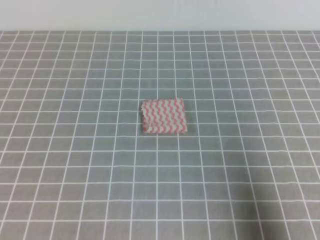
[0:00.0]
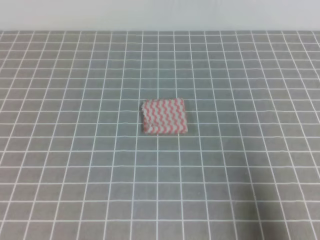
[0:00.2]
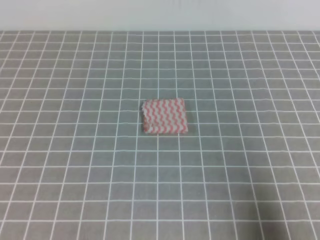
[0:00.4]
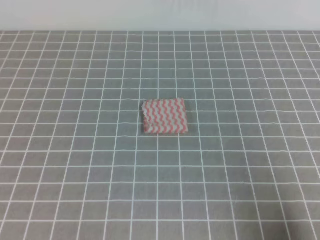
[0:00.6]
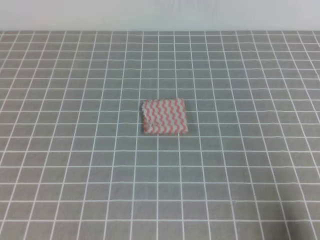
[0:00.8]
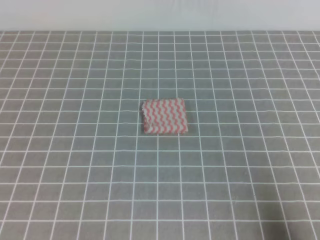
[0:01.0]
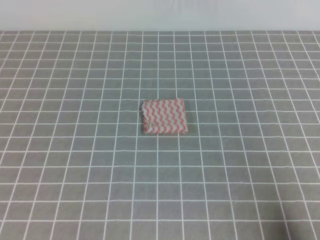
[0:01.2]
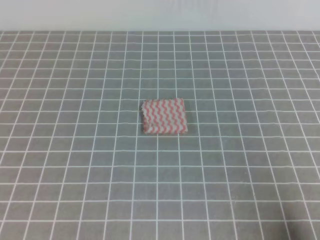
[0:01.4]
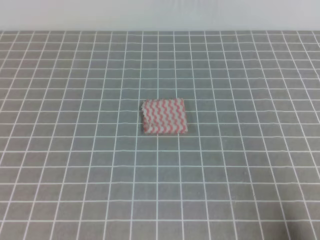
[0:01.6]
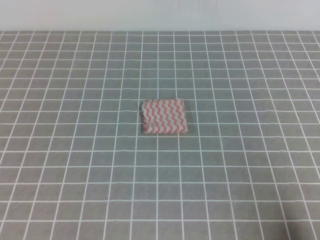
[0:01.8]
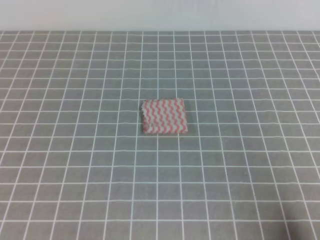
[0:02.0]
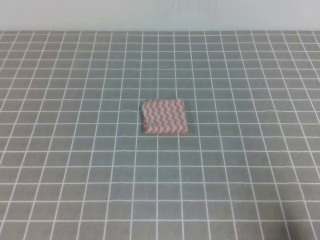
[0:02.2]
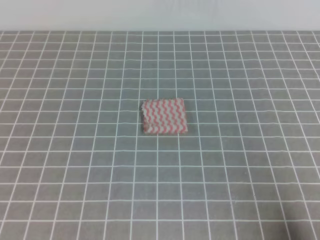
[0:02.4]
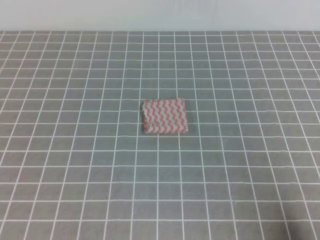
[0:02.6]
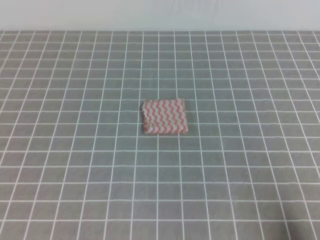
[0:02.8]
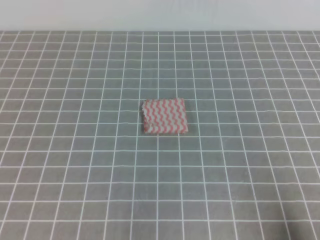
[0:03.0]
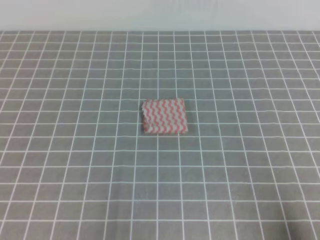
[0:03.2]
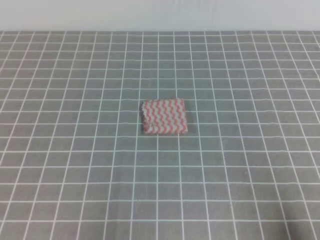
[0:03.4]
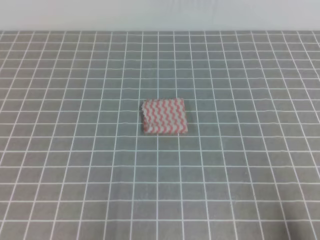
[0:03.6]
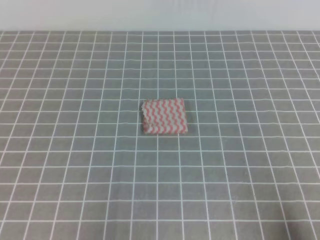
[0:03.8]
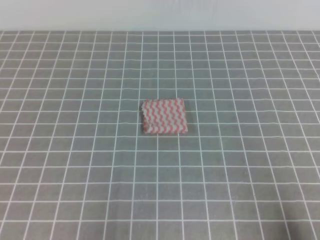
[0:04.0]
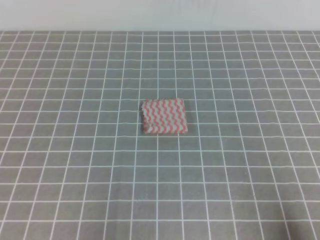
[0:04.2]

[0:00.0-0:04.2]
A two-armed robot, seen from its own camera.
0:00.0 to 0:01.4: The right gripper heads downward, covering about 10 cm.

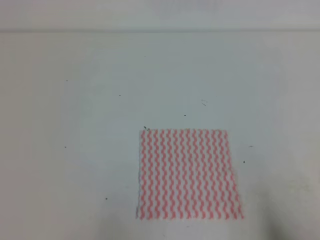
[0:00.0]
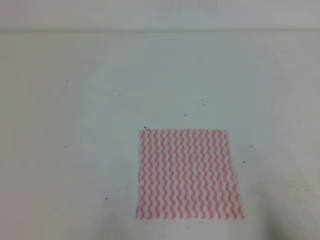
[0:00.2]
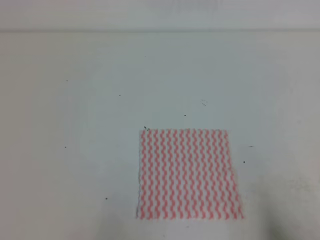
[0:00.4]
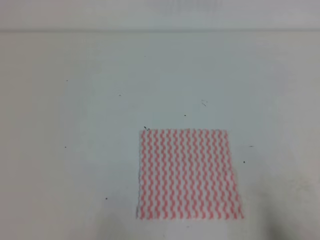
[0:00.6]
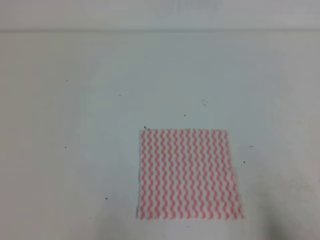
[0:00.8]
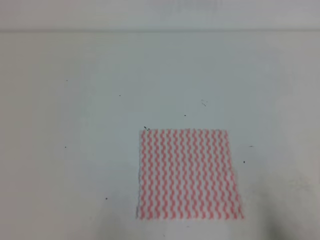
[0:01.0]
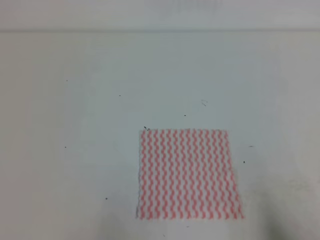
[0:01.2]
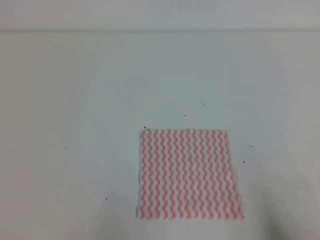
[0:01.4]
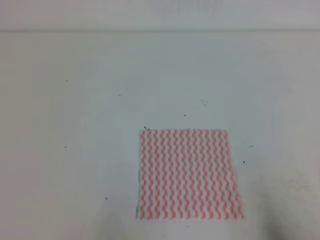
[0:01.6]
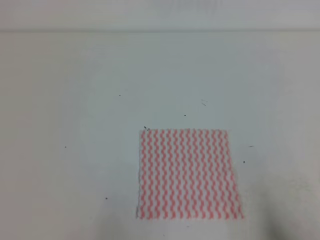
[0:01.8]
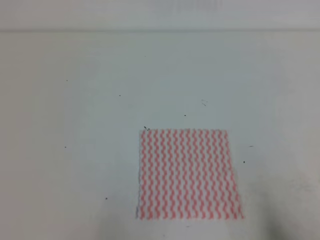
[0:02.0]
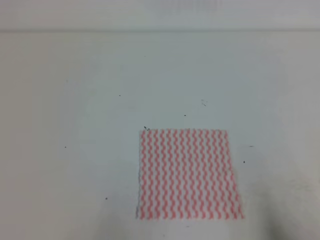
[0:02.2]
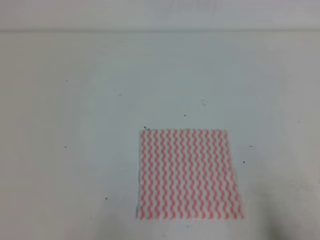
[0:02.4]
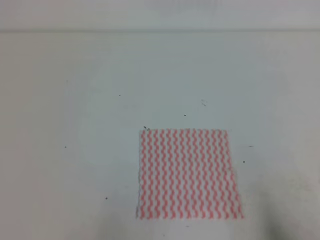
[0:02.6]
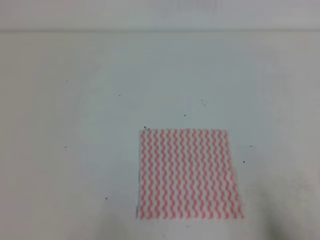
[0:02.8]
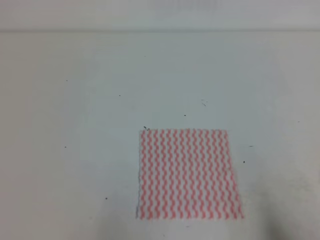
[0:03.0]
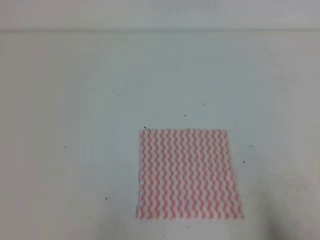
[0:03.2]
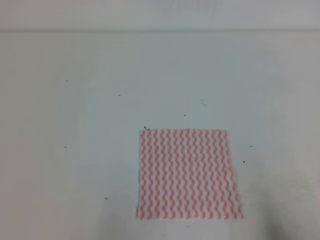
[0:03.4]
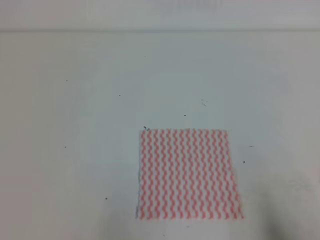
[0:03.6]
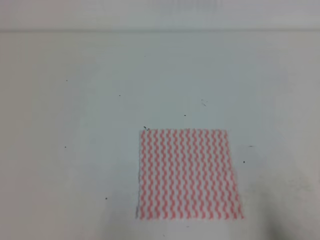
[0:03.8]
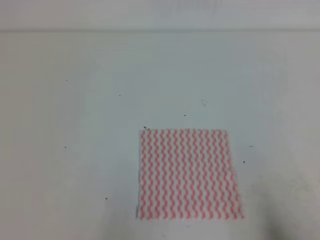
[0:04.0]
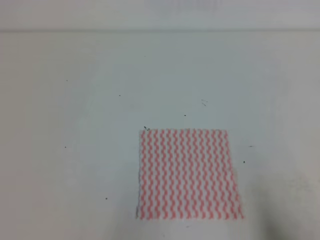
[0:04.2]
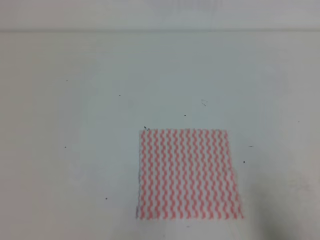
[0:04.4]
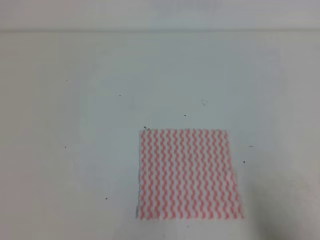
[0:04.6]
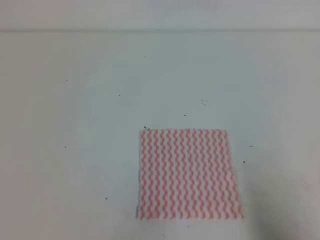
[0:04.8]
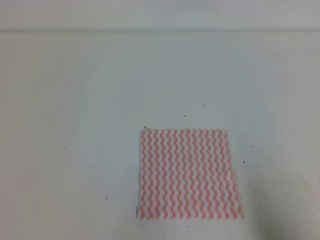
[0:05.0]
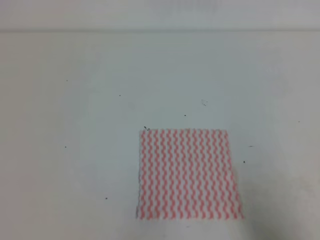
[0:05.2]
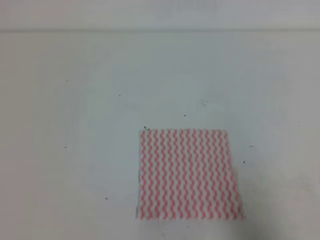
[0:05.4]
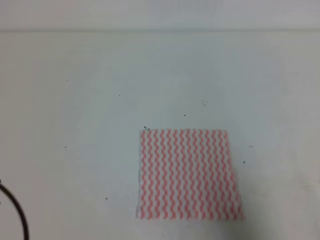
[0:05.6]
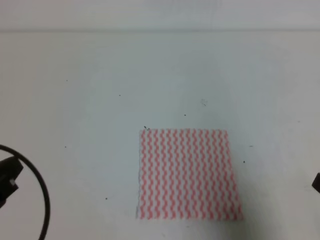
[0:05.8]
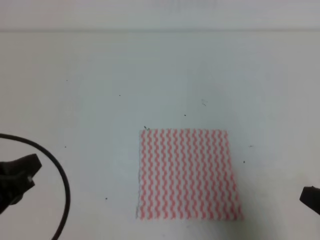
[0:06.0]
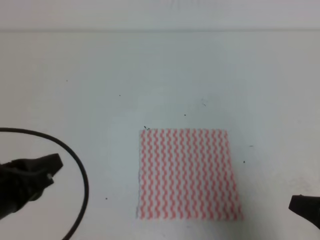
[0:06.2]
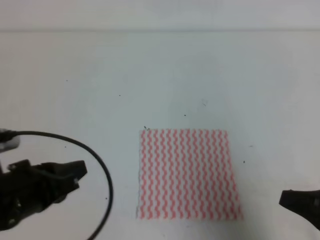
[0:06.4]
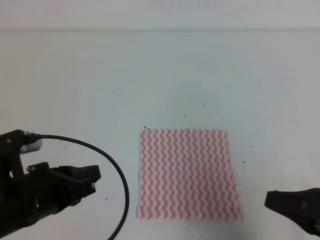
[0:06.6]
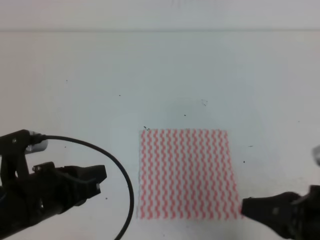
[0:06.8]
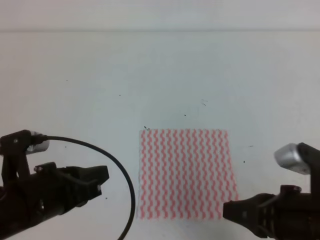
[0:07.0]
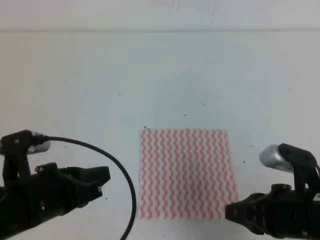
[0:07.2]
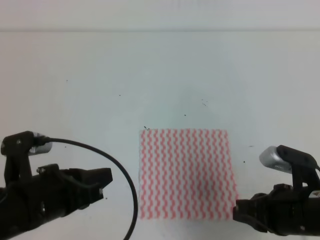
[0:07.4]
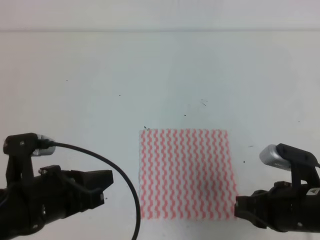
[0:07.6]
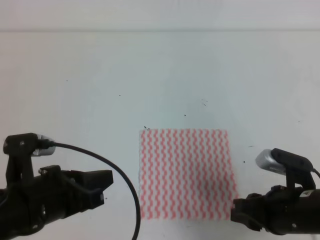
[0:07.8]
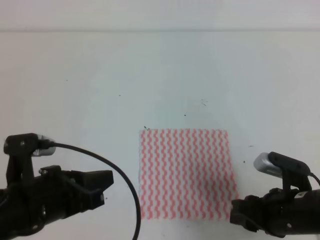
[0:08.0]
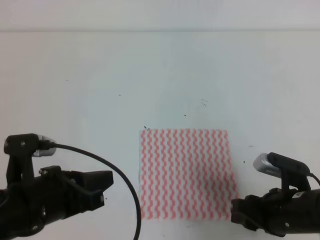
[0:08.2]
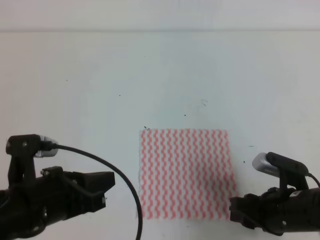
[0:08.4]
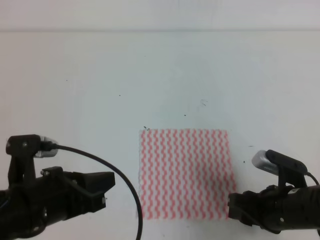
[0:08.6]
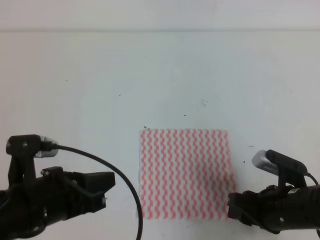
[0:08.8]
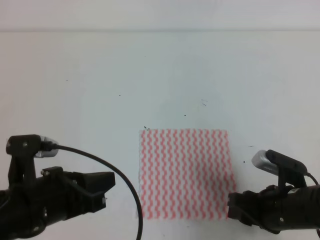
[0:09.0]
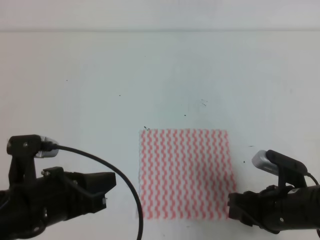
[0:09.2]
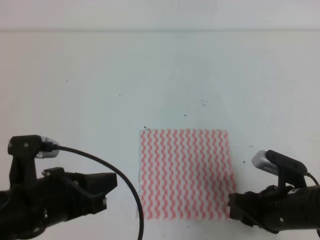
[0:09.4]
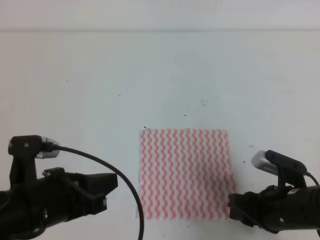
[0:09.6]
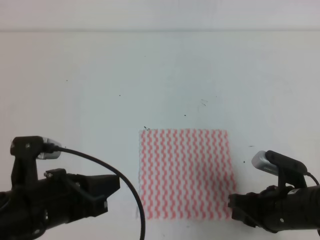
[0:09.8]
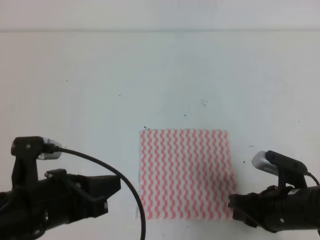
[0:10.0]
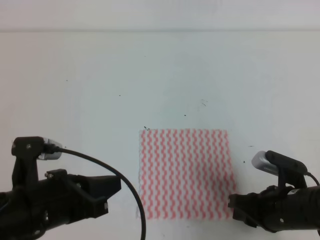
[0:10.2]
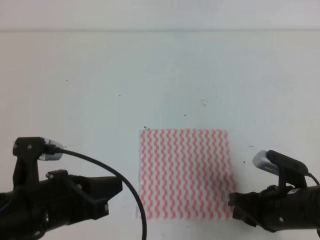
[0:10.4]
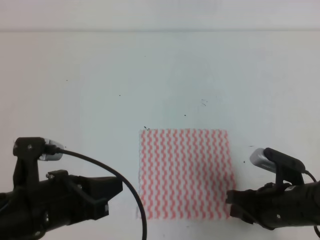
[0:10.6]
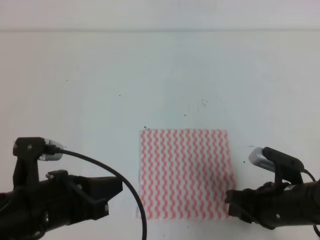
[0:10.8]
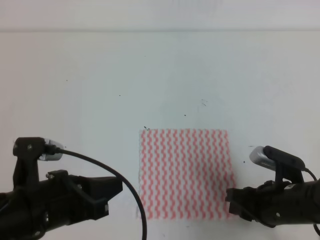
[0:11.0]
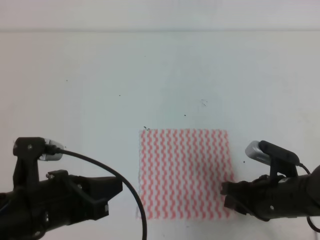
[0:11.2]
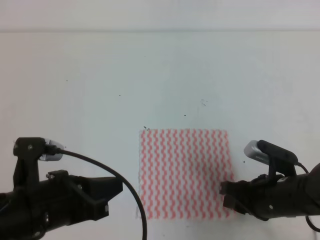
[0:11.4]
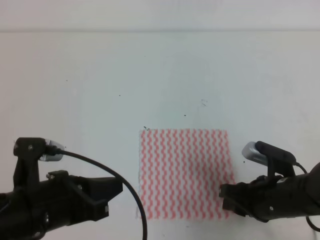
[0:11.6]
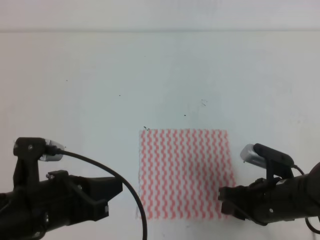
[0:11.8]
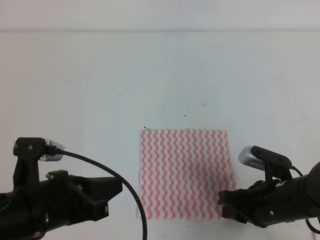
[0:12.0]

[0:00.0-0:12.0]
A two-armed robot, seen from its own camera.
0:00.0 to 0:03.0: Both grippers stay about where they are.
0:04.4 to 0:06.0: The left gripper travels forward and upward by approximately 10 cm. Meanwhile the right gripper goes some 5 cm forward.
0:06.0 to 0:07.6: The left gripper moves to the right, roughly 5 cm. Meanwhile the right gripper shifts approximately 10 cm to the left, forward and downward.
0:07.6 to 0:09.0: The right gripper shifts by about 5 cm, and opens.
0:09.0 to 0:10.4: The right gripper closes up.
0:10.4 to 0:12.0: The grippers make only small movements.

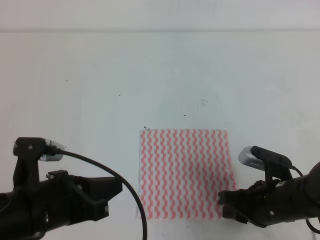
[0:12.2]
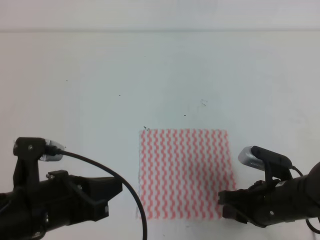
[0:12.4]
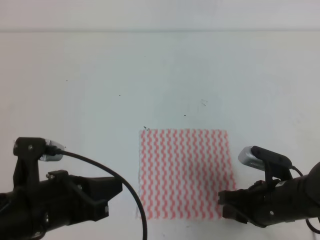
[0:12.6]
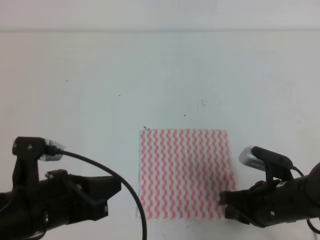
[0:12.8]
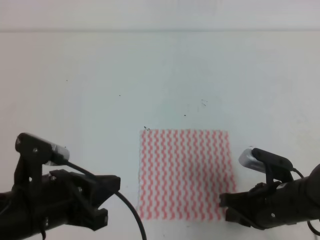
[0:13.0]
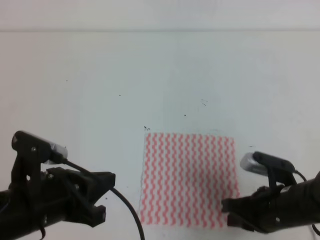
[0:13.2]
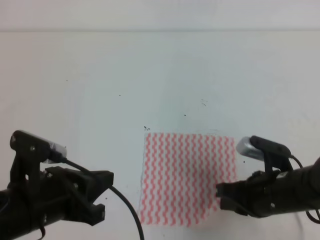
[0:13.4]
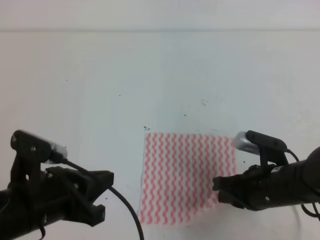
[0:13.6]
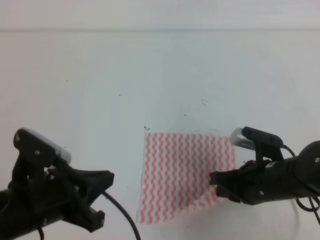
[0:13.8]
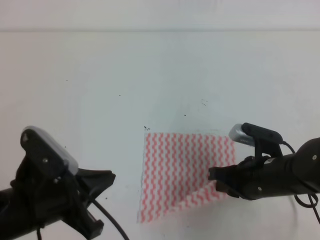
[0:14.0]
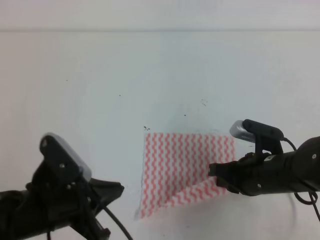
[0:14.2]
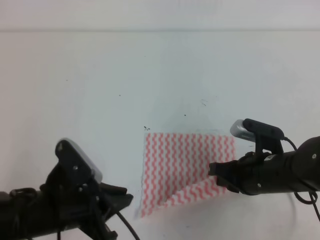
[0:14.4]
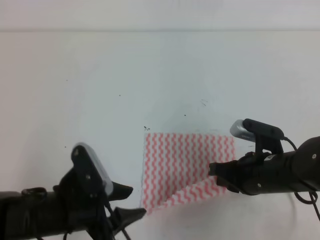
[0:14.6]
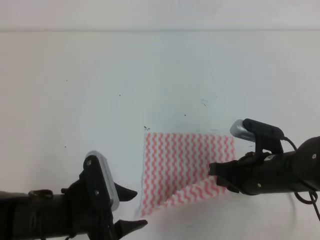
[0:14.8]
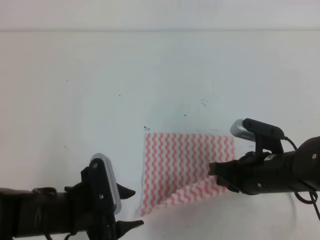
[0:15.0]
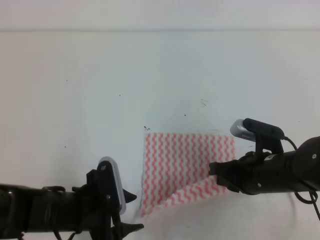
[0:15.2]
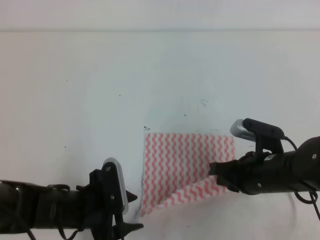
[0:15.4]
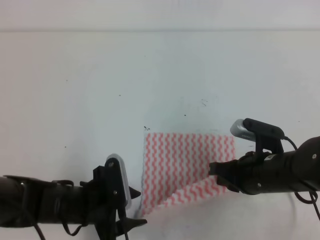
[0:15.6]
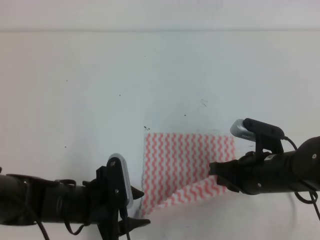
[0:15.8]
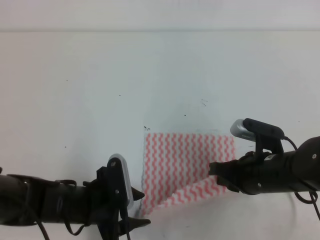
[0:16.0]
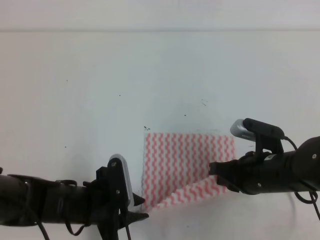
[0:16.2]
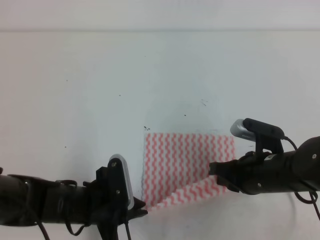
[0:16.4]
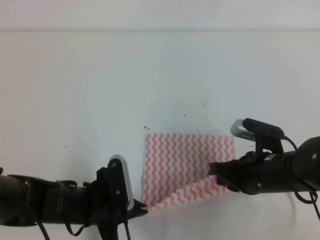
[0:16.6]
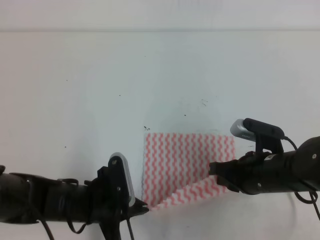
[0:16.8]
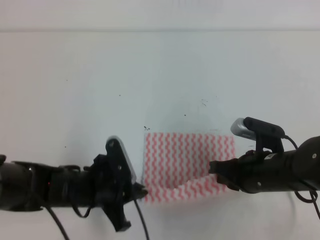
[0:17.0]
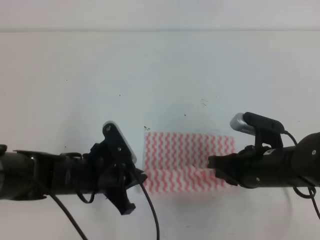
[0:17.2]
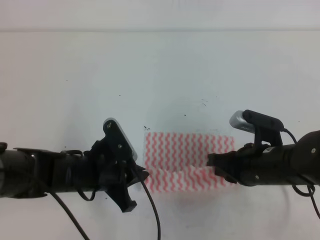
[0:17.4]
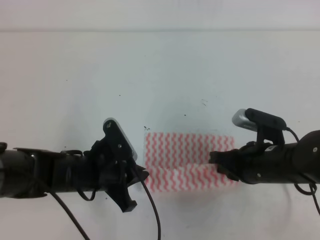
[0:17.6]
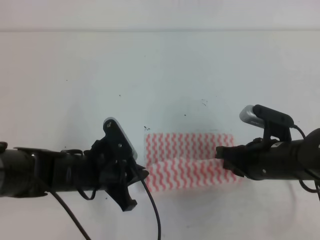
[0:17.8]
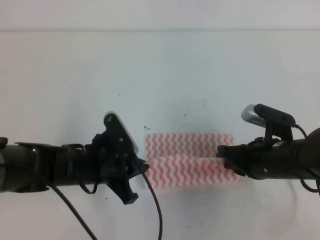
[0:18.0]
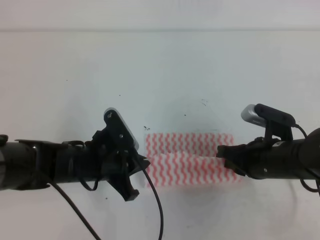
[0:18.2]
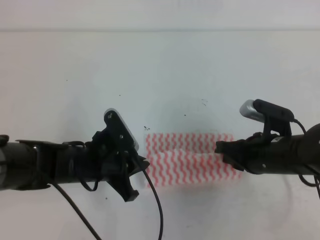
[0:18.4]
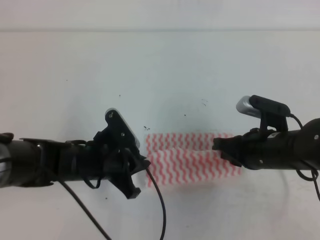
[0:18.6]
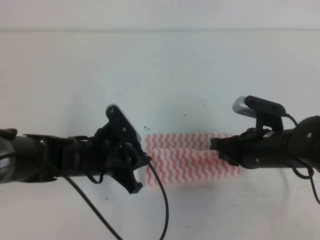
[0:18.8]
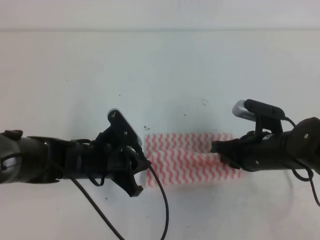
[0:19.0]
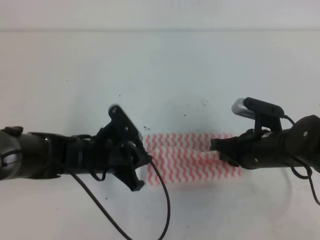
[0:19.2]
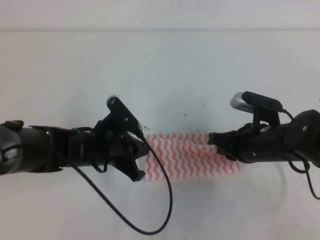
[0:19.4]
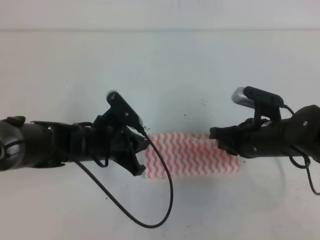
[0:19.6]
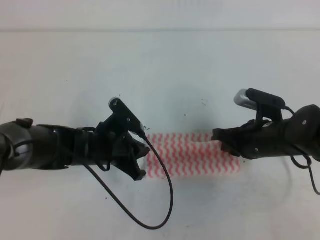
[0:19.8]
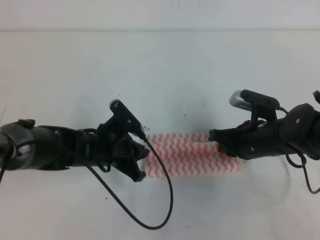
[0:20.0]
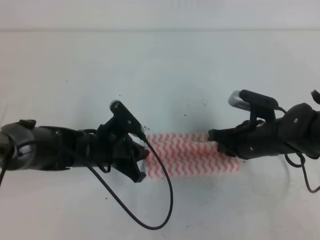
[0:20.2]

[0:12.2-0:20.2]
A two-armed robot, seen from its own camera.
0:12.2 to 0:13.8: The right gripper closes.
0:13.8 to 0:15.4: The left gripper travels downward by roughly 10 cm, and opens.
0:15.4 to 0:17.0: The left gripper closes up.
0:18.6 to 0:20.2: There are only small adjustments of the grippers.
